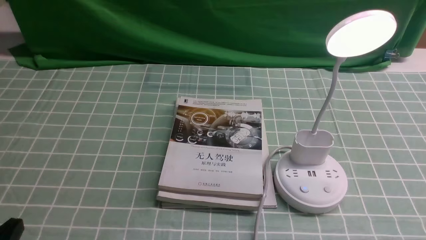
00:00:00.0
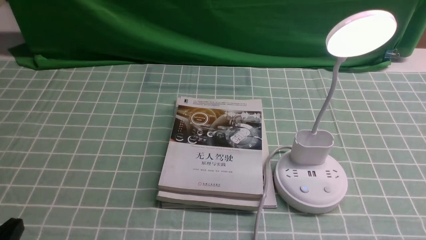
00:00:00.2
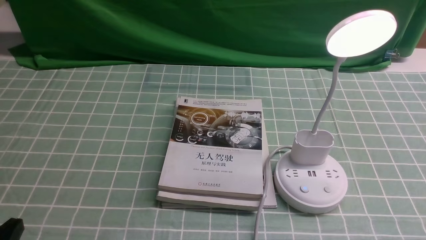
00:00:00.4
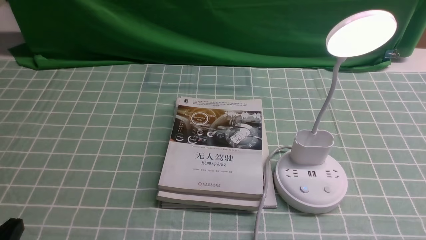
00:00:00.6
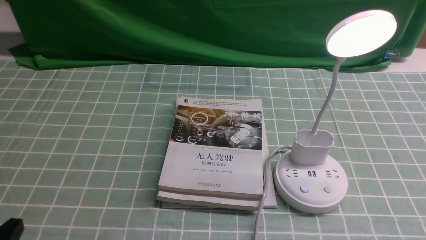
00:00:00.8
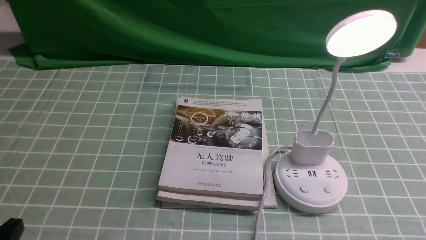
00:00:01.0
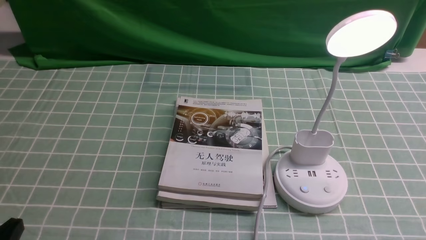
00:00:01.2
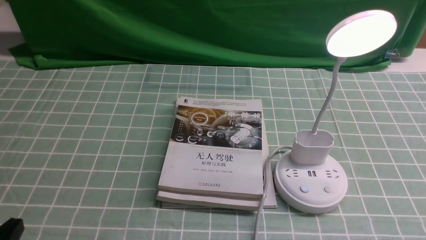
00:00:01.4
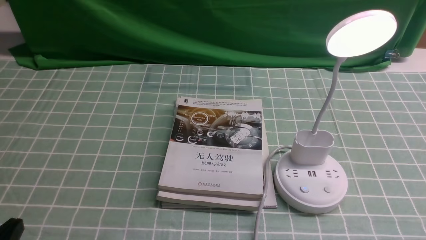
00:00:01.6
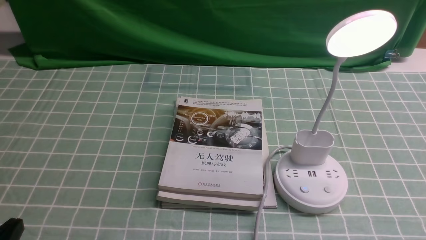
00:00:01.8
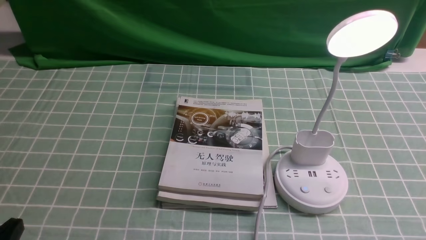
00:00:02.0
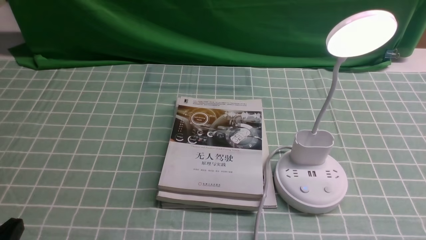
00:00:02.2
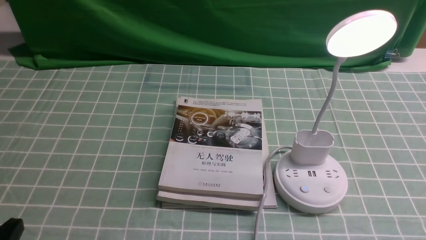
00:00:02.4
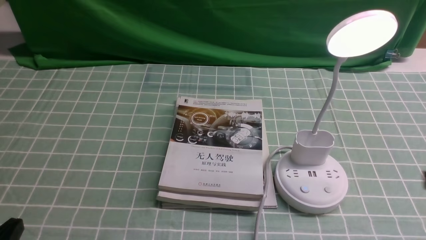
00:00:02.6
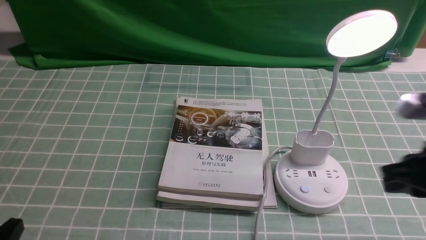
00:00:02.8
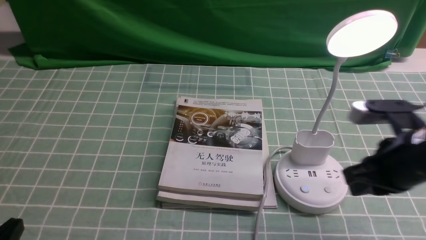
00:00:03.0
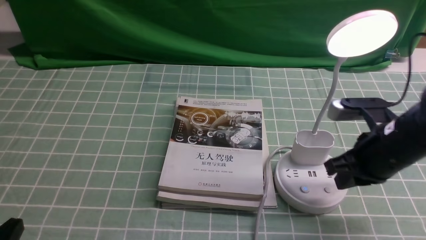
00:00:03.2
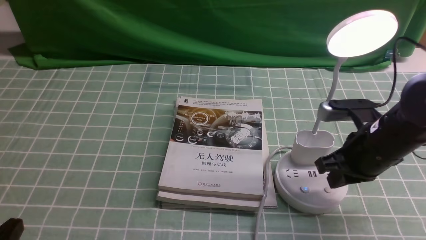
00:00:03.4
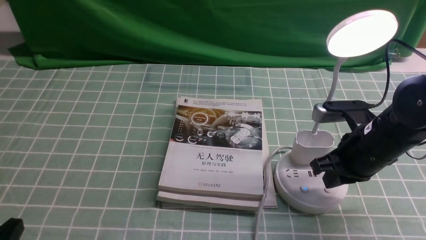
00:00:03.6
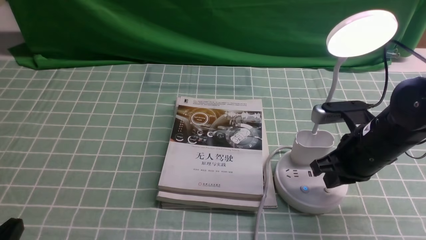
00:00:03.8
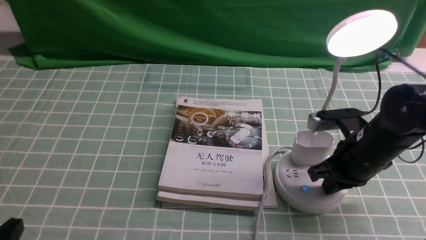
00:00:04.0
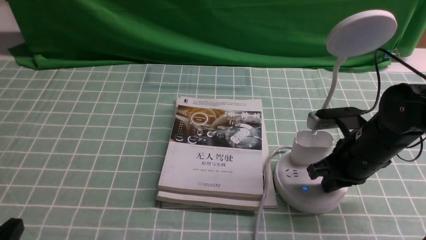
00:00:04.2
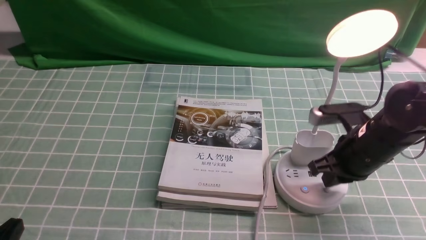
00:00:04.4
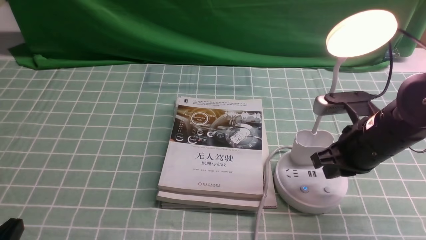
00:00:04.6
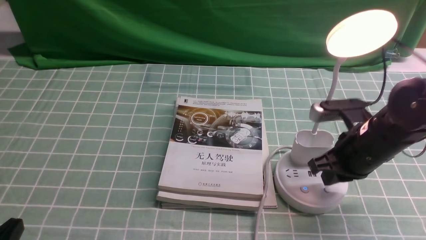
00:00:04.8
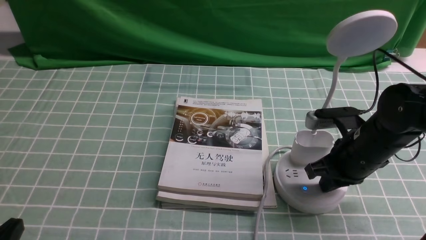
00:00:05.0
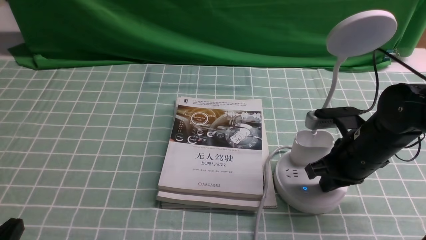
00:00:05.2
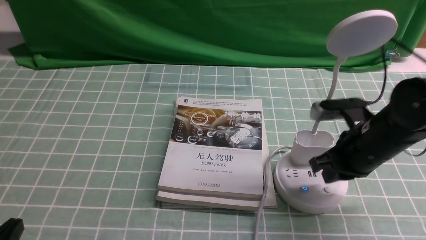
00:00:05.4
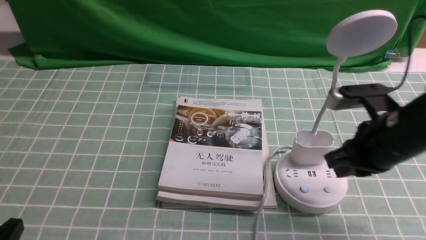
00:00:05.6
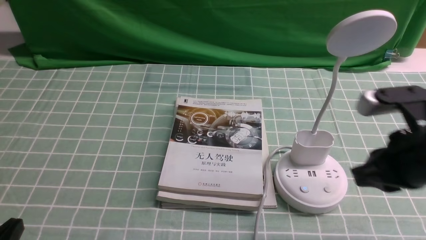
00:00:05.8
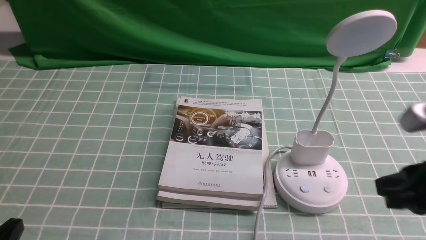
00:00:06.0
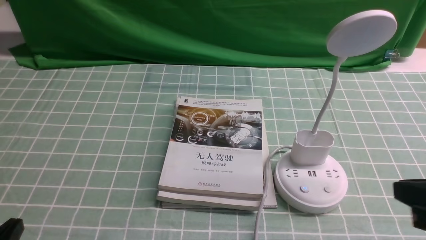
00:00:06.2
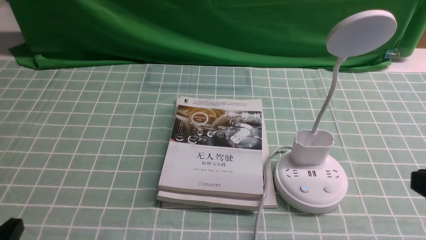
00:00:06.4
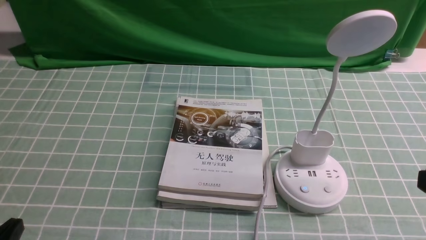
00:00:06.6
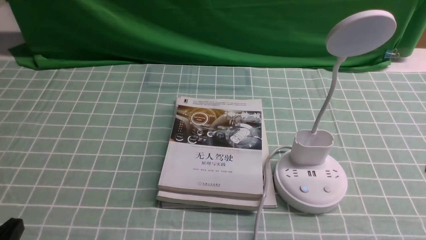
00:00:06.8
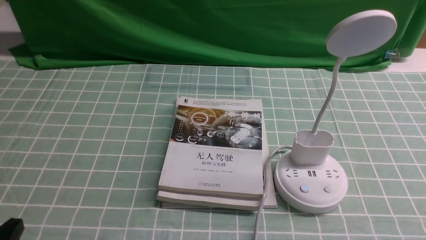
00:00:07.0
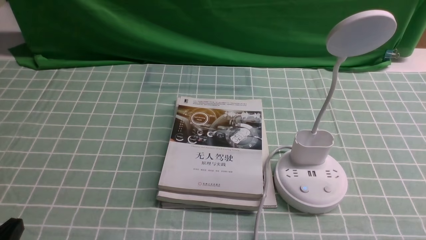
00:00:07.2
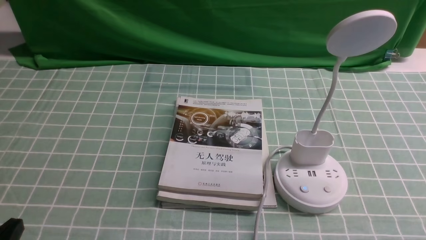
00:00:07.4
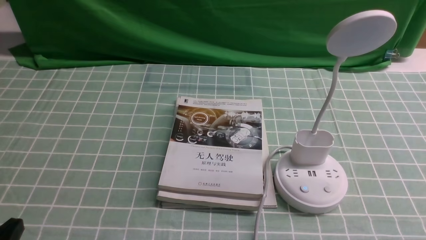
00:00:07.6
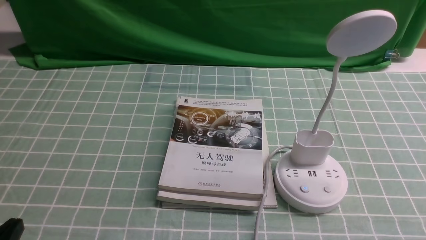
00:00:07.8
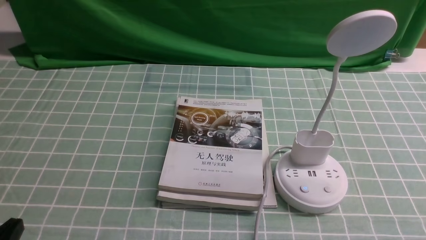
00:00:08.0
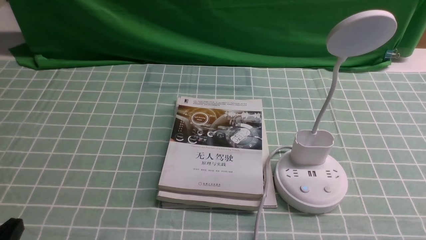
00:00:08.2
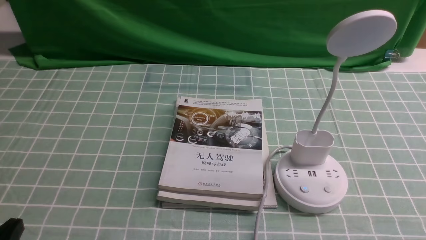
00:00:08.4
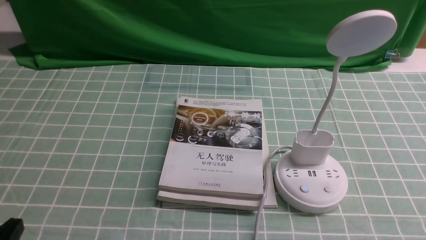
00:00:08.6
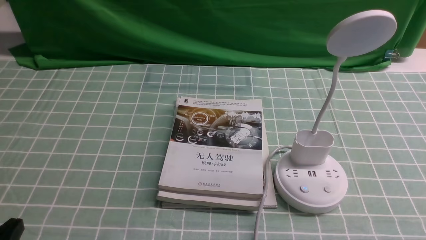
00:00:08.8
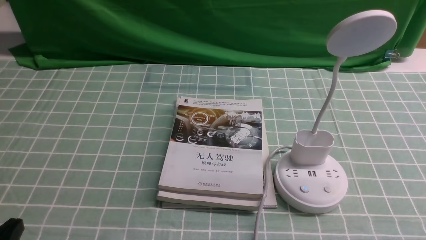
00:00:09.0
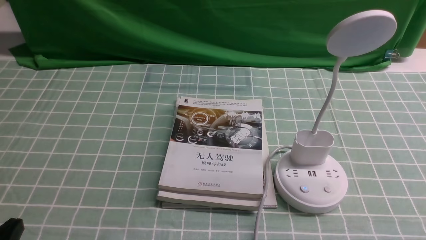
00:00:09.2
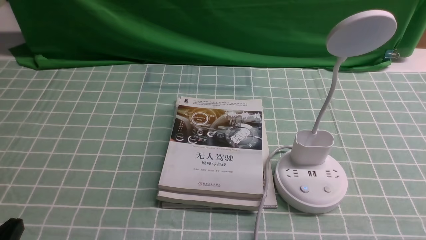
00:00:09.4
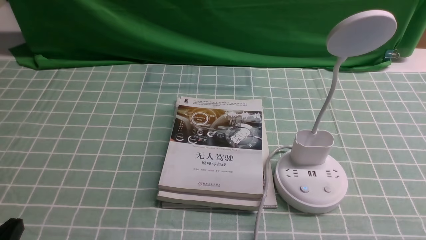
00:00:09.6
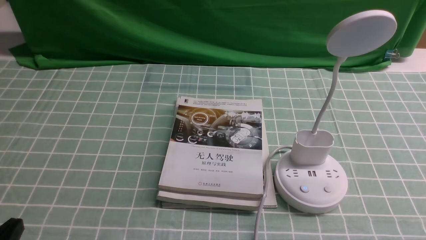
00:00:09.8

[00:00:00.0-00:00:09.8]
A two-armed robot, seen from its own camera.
Task of the whole recording: turn off the desk lamp on the blue coffee tablecloth by hand.
Step, 00:00:00.0 to 00:00:05.4: use the right arm to press the button switch on the lamp holder.
00:00:01.4 to 00:00:02.8: The right gripper travels forward and upward by some 15 cm, and closes up.
00:00:02.8 to 00:00:04.2: The right gripper is displaced forward, downward and to the left by some 15 cm.
00:00:04.2 to 00:00:05.6: The right gripper goes about 5 cm upward.
00:00:05.6 to 00:00:07.0: The right gripper heads backward and to the right, covering about 20 cm.
